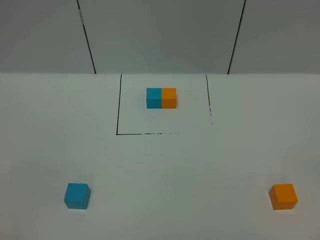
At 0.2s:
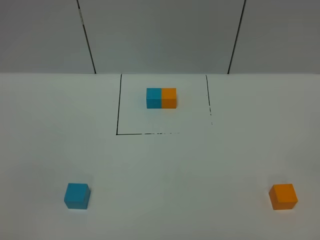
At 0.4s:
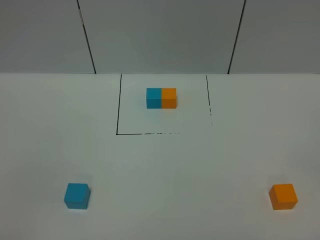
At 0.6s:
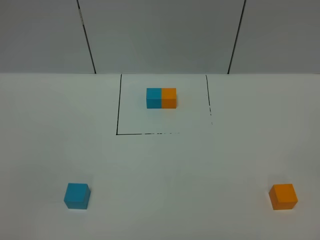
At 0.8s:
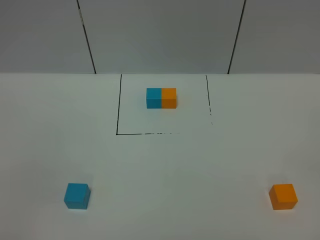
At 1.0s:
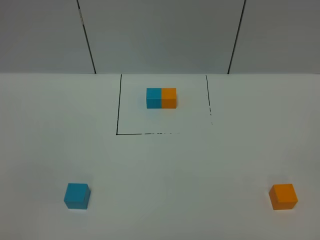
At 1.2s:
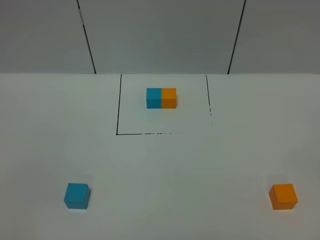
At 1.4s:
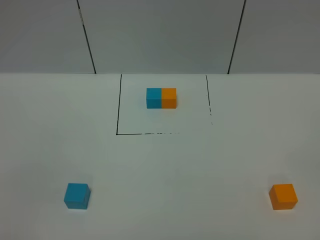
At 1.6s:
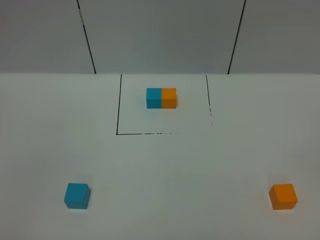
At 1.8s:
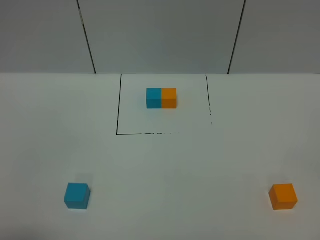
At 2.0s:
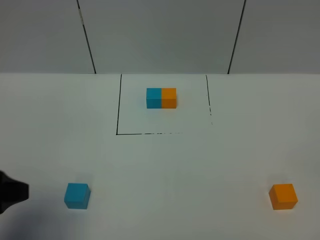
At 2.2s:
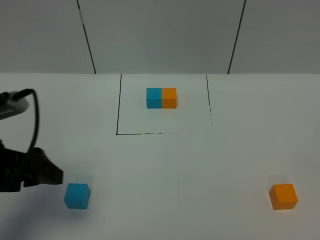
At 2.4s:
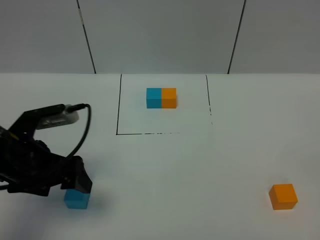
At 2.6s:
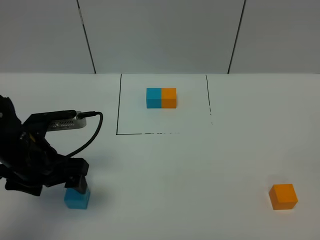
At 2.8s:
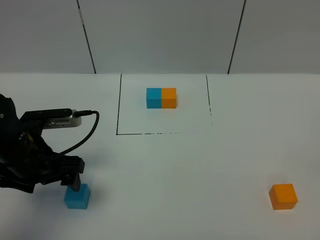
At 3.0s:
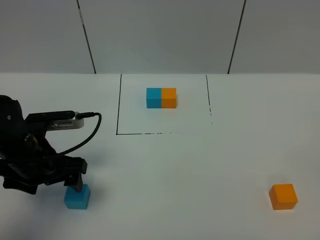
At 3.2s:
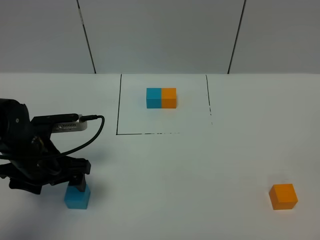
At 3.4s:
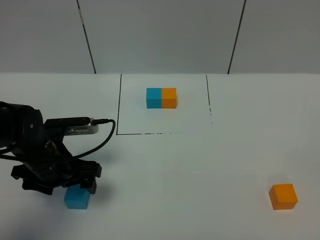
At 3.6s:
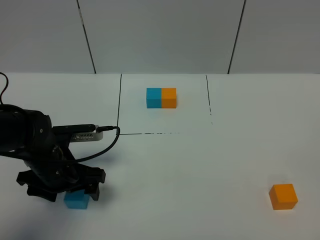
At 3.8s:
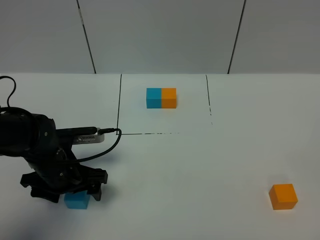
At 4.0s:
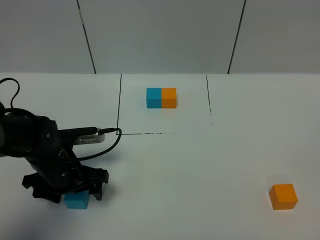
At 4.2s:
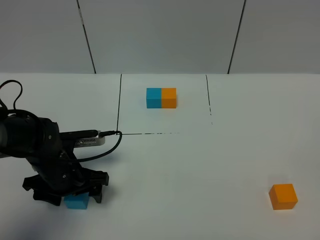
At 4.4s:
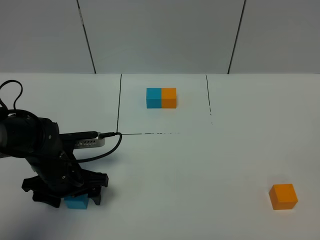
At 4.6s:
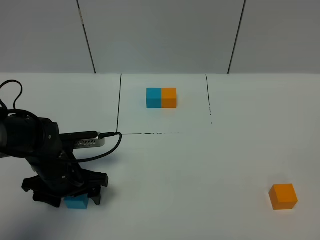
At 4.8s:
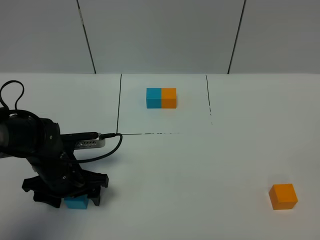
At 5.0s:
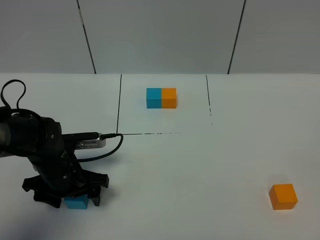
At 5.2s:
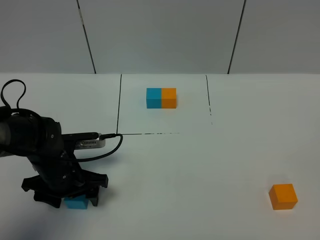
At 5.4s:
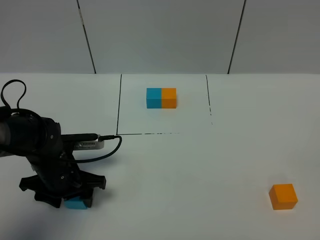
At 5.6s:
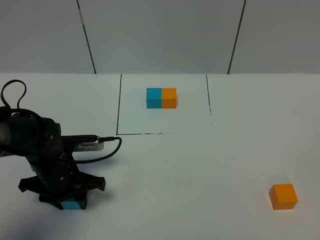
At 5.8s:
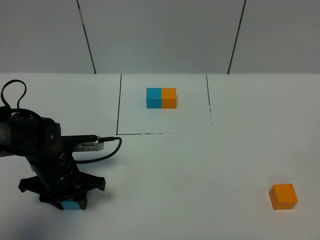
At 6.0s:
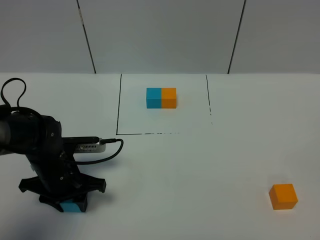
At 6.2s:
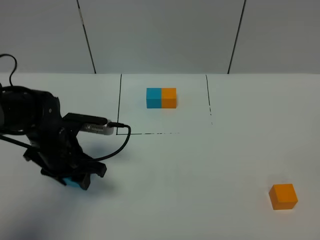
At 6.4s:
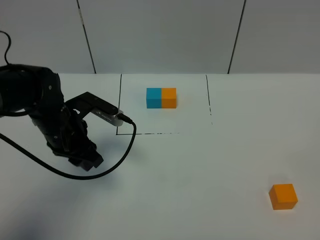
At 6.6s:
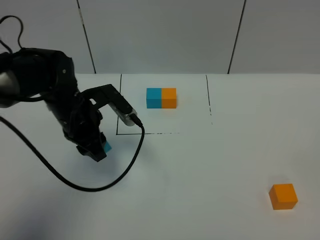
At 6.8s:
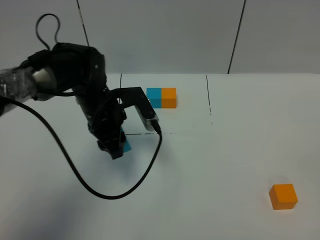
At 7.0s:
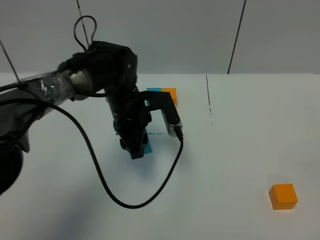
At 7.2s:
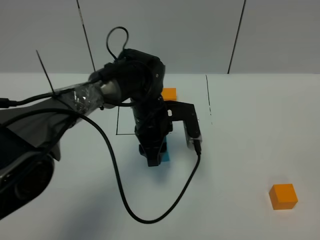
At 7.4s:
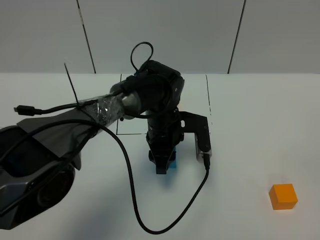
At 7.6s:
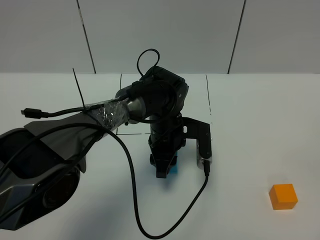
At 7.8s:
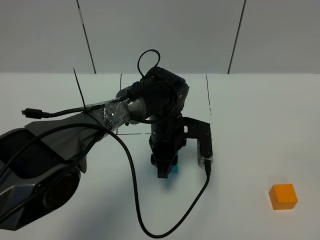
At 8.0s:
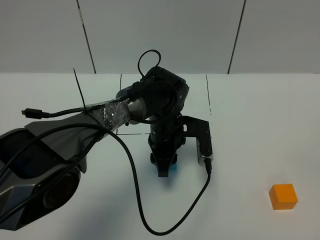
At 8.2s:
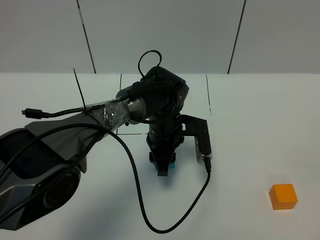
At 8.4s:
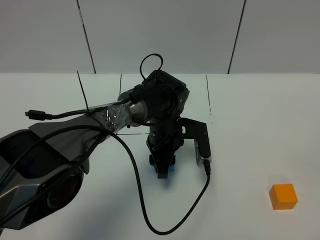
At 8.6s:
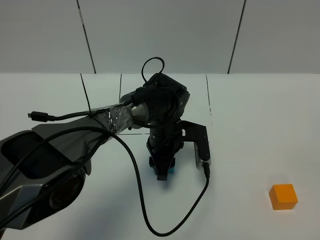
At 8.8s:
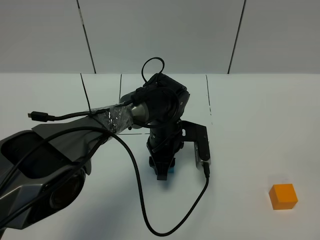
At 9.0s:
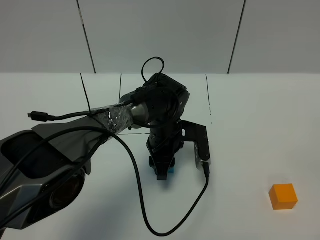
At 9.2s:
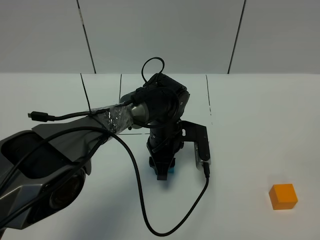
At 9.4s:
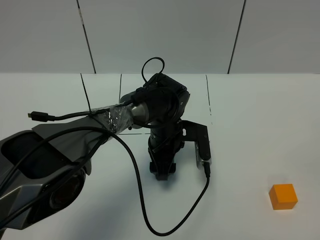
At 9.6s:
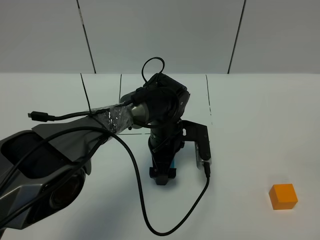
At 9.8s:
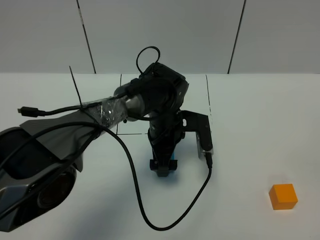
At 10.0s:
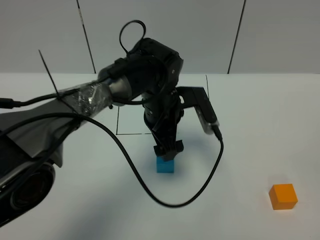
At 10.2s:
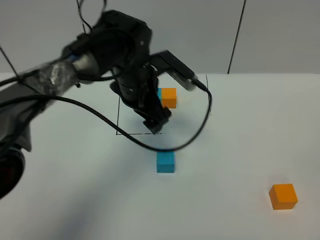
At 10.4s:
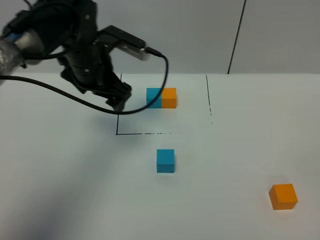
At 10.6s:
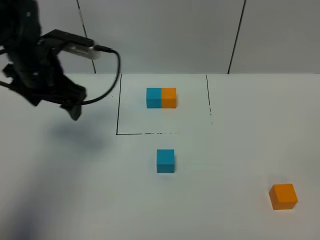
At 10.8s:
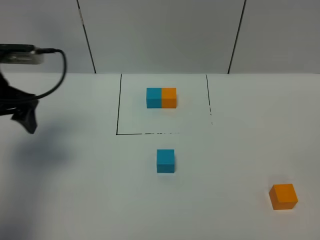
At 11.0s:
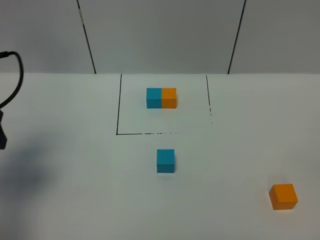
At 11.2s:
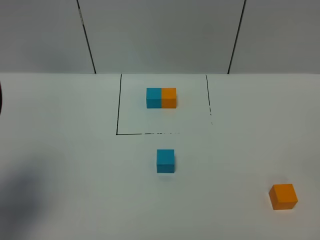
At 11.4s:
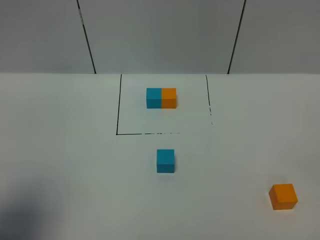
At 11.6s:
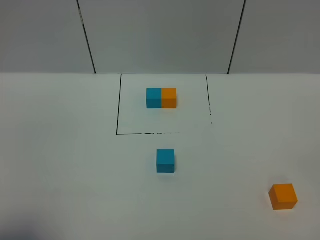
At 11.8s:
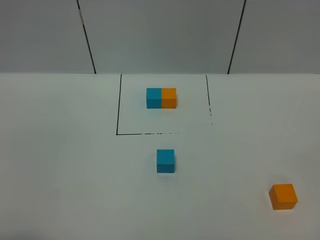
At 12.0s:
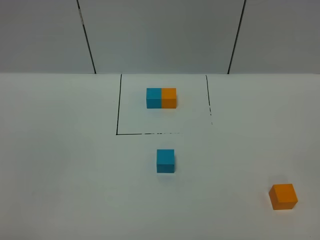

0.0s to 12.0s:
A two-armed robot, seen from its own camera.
Task of the whole recording: According to the building block template in front, assemble the scattered blocks together.
Step, 1.8s to 9.8s: Put the blue cube in the center of the table.
1.6s to 3.0s: The left gripper goes approximately 30 cm forward and downward.
3.0s to 4.4s: The left gripper shifts about 5 cm downward.
4.4s to 6.0s: The left gripper closes.
6.0s to 7.6s: The left gripper is displaced to the right and forward by roughly 20 cm.
7.6s to 9.0s: The grippers stay close to where they were, moving slightly.
9.0s to 10.4s: The left gripper moves upward and to the left, about 20 cm, and opens.
10.4s to 12.0s: The left gripper goes about 40 cm backward.

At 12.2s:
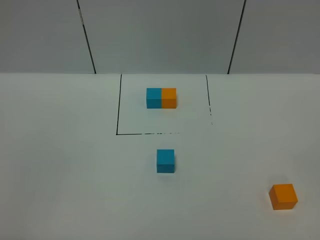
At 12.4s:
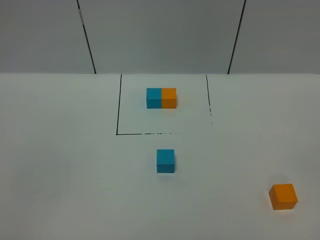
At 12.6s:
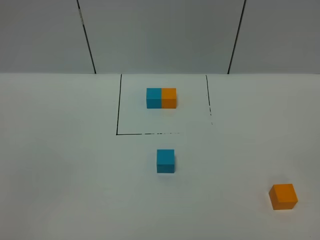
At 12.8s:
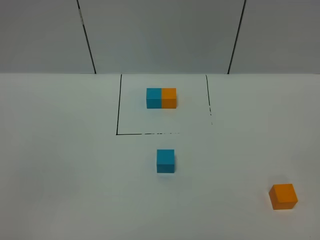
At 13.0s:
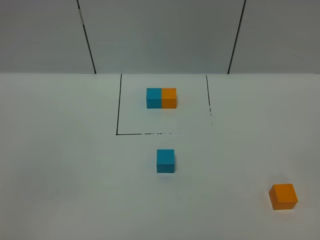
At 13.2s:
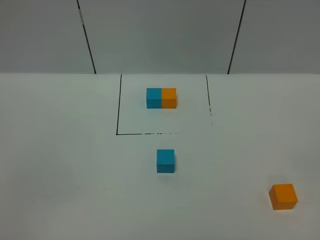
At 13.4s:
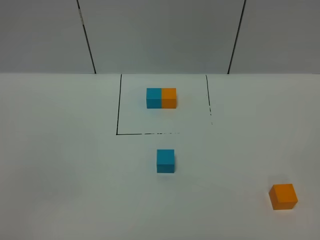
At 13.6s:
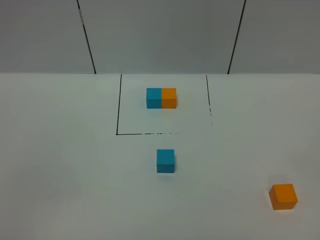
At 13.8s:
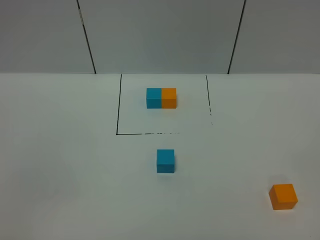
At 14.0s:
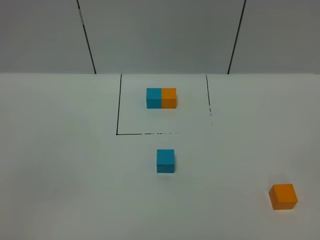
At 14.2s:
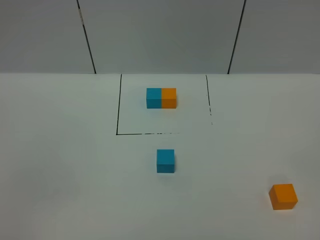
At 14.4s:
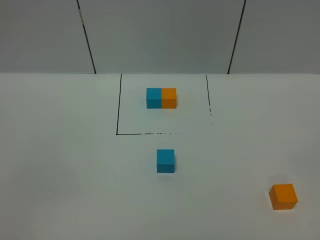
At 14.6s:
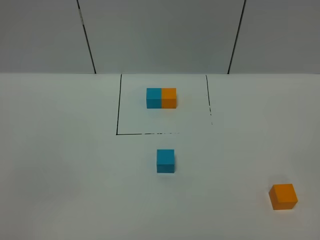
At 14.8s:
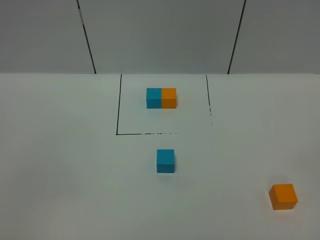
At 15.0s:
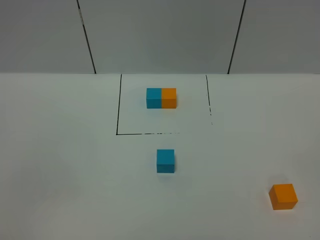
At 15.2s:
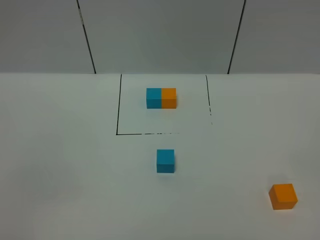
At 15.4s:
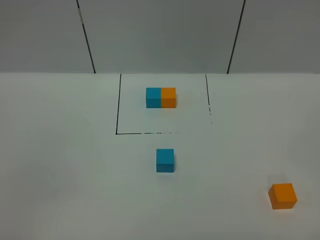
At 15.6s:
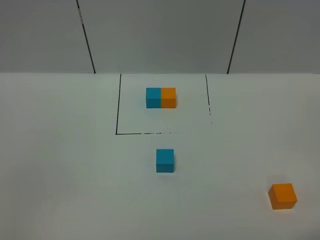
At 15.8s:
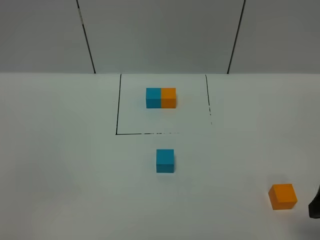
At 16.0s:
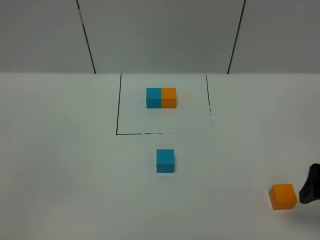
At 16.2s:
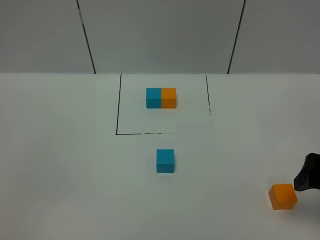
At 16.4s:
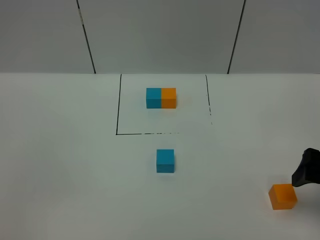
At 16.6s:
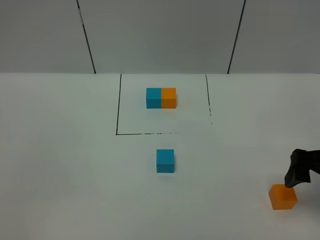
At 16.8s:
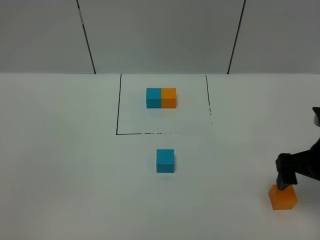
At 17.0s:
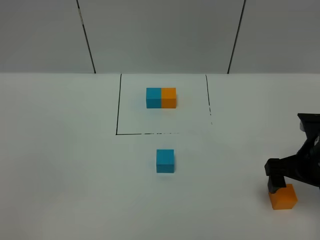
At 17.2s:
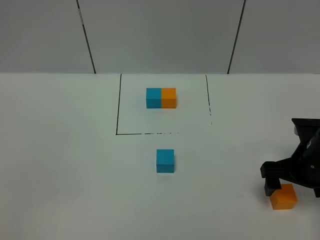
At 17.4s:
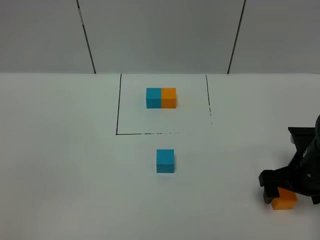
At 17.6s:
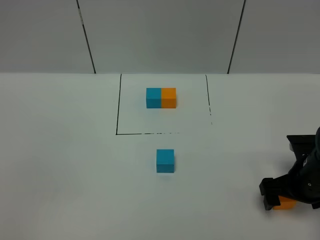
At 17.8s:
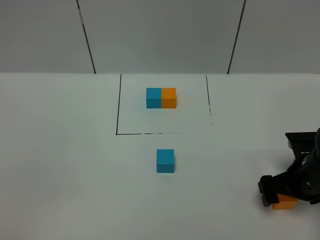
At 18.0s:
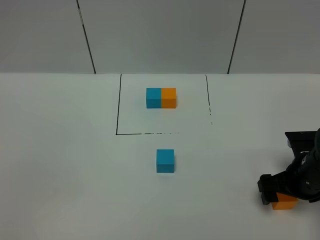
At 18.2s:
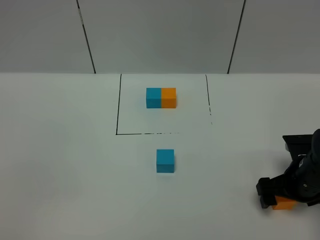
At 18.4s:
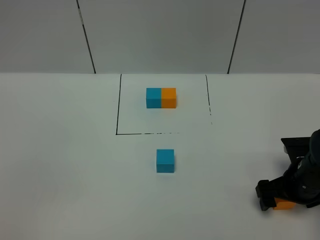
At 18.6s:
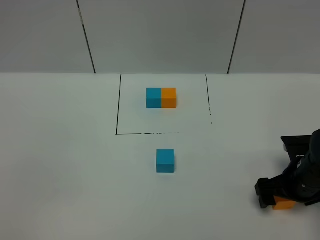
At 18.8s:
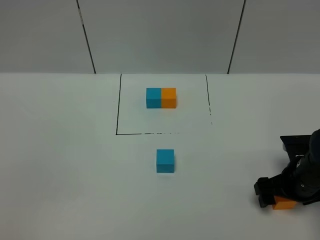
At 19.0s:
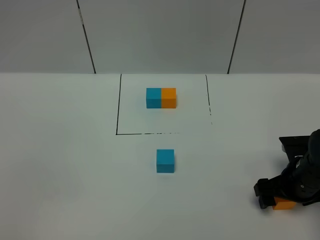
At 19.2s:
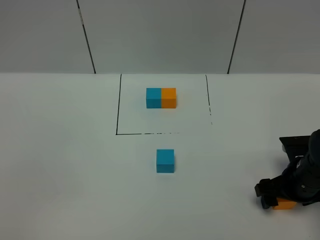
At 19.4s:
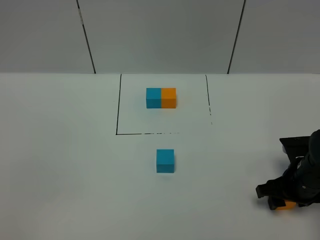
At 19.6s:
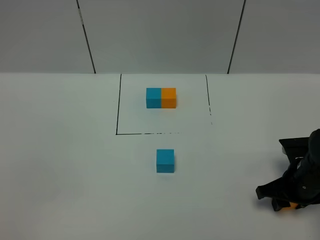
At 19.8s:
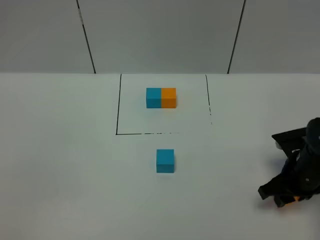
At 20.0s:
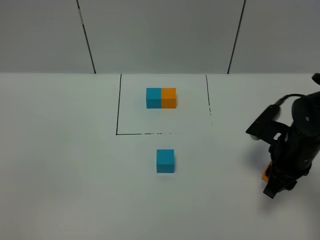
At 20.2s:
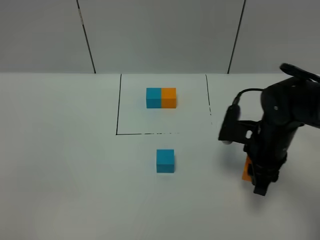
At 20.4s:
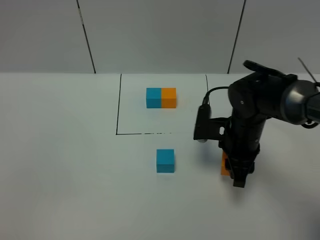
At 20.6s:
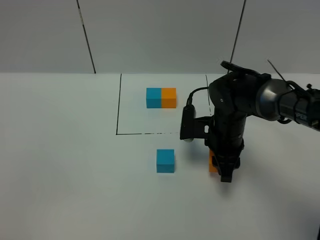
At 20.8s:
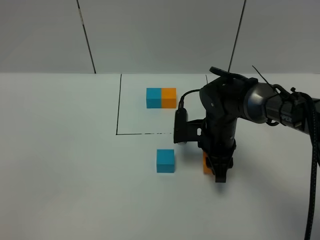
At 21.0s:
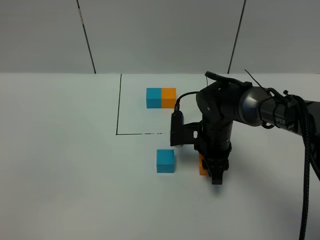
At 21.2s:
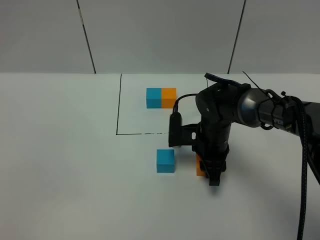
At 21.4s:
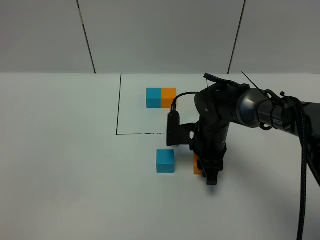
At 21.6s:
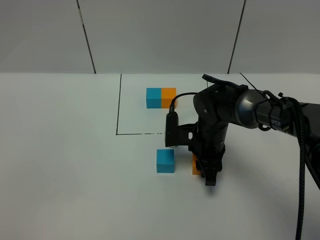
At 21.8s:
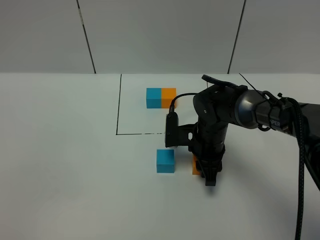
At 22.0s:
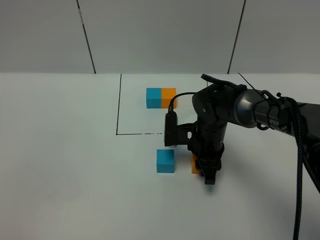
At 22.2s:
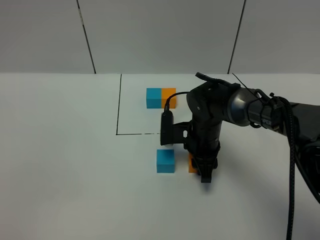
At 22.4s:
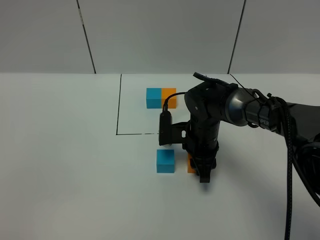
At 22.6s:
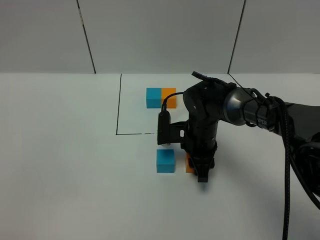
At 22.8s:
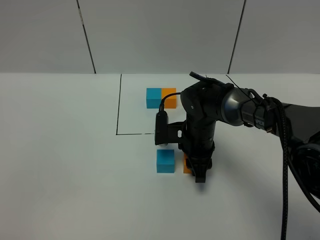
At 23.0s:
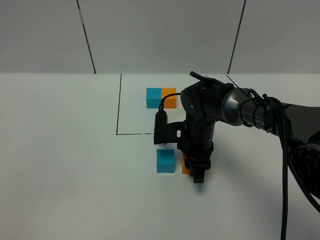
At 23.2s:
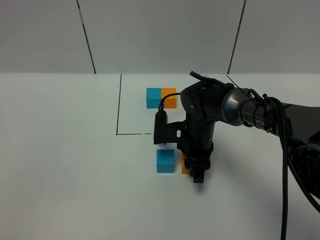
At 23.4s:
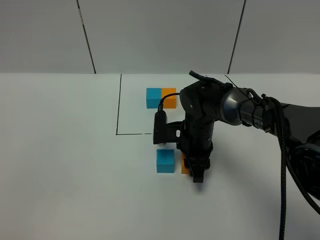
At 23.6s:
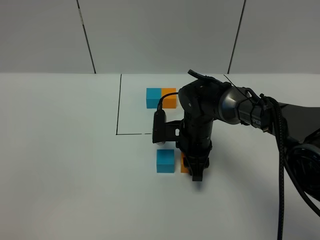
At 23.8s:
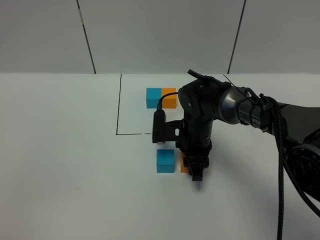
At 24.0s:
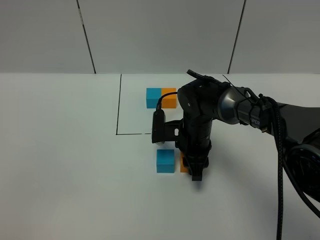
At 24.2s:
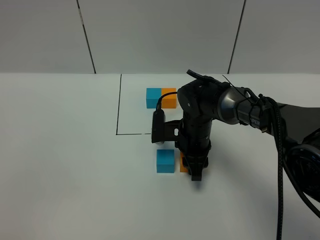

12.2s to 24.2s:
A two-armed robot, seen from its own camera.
Task of the whole recording: According to the building block template in front, assemble the scattered blocks together.
13.8s to 15.2s: The two grippers keep their place.
15.2s to 16.6s: The right gripper heads forward, covering roughly 25 cm.
16.6s to 18.2s: The right gripper is displaced downward by some 10 cm.
18.2s to 19.8s: The right gripper closes.
19.8s to 21.2s: The right gripper shifts roughly 20 cm to the left and forward.
21.2s to 22.6s: There are only small adjustments of the grippers.
22.6s to 24.2s: Neither gripper changes place.
